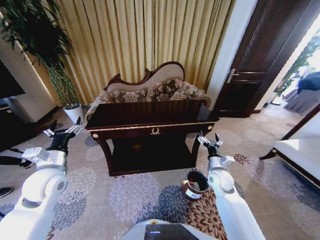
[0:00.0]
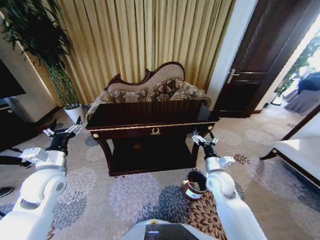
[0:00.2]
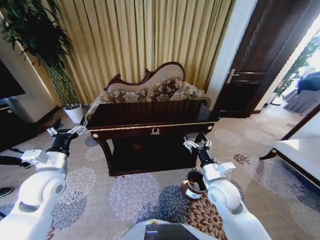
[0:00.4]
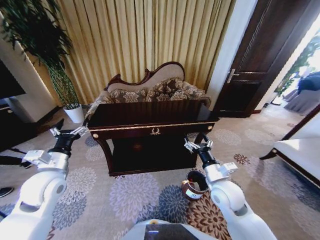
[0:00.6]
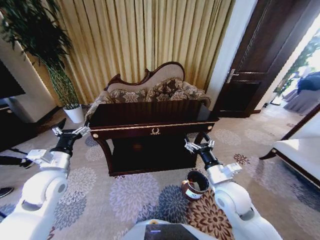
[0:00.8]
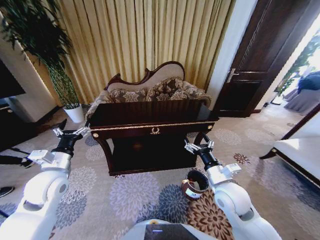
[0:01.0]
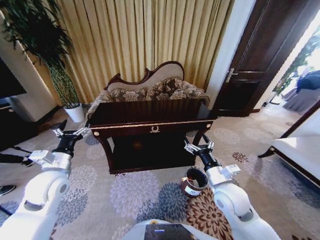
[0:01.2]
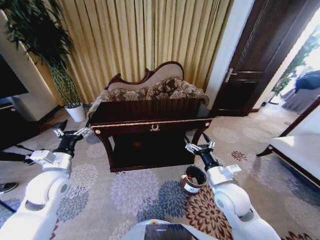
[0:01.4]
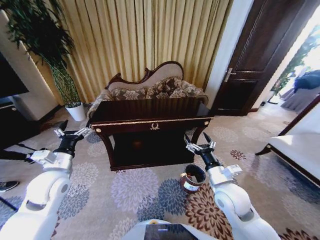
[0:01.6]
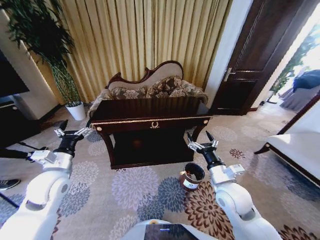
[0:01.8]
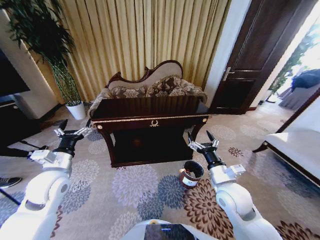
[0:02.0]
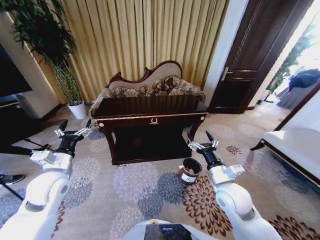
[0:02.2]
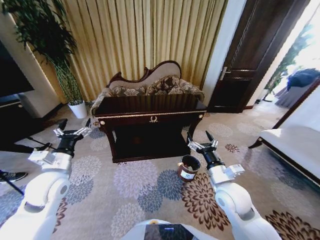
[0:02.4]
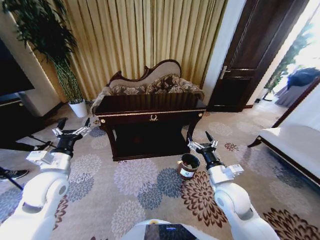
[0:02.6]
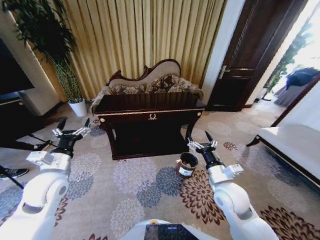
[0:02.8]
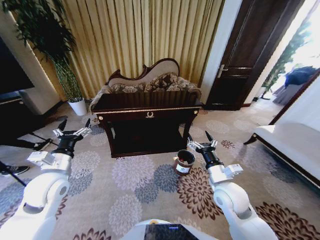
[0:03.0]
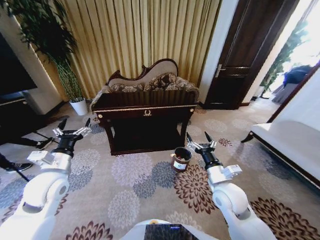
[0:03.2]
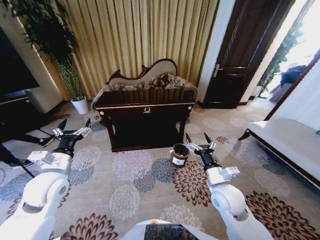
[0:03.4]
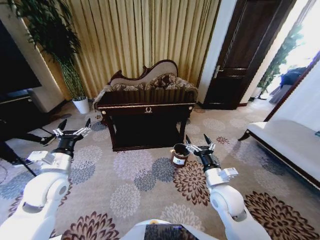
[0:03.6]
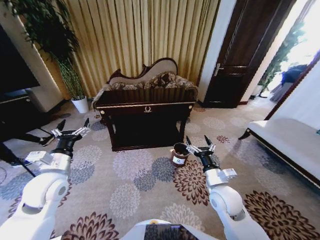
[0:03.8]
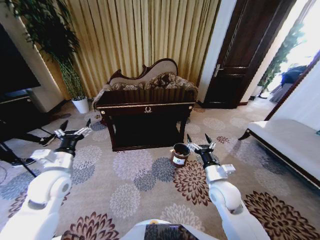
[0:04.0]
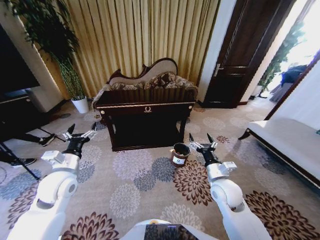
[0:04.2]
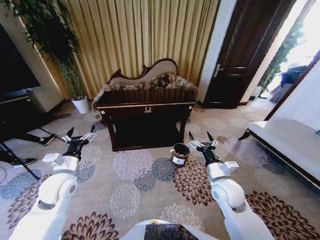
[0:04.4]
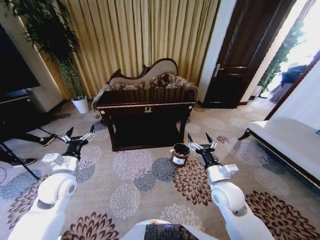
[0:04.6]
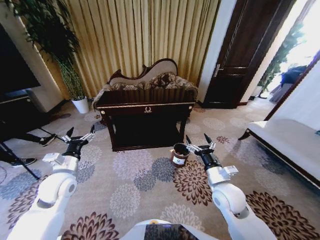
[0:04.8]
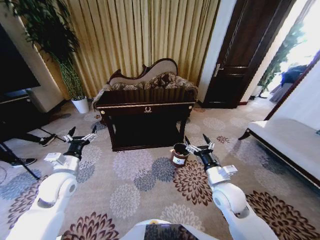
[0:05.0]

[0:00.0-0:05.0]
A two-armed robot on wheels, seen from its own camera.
Task of the whole recording: Move to the front of the table and place the trash on the table into the trash bin.
0:00.0 to 0:01.6: The right gripper shifts about 15 cm backward, upward and to the left.
0:03.4 to 0:05.0: The grippers stay close to where they were, moving slightly.

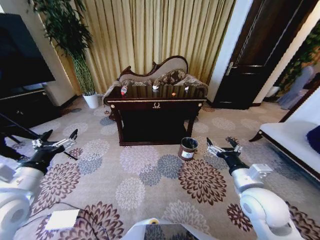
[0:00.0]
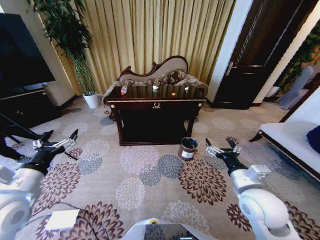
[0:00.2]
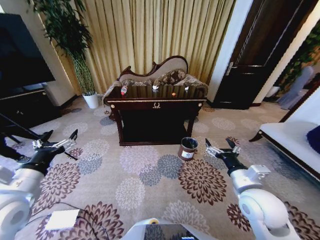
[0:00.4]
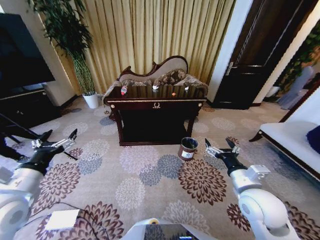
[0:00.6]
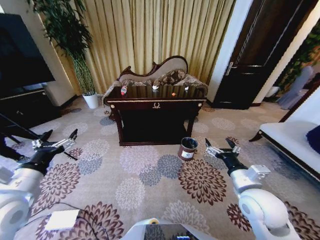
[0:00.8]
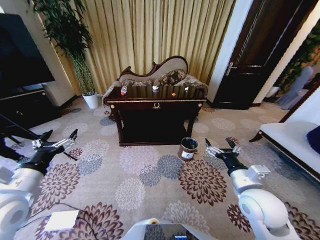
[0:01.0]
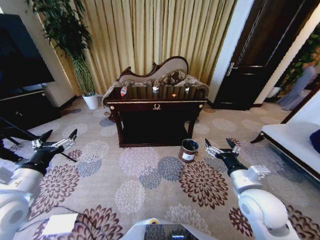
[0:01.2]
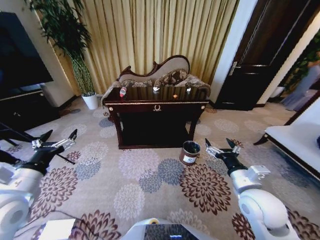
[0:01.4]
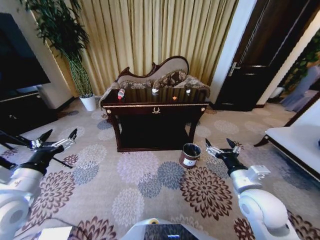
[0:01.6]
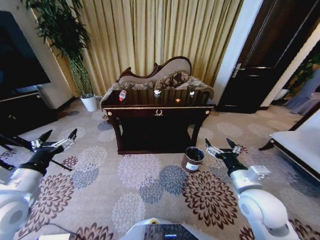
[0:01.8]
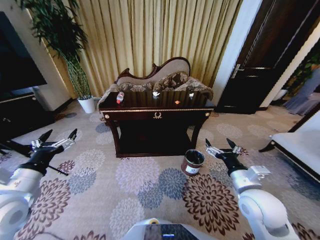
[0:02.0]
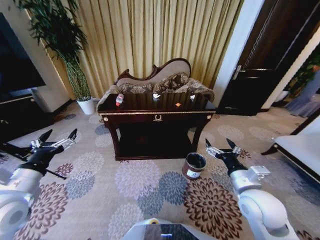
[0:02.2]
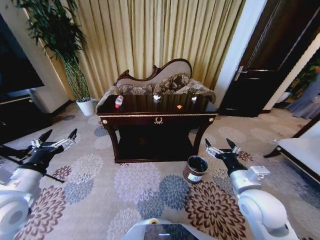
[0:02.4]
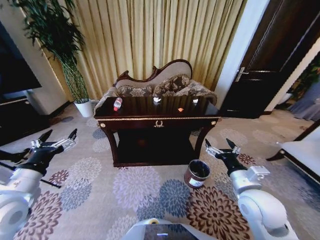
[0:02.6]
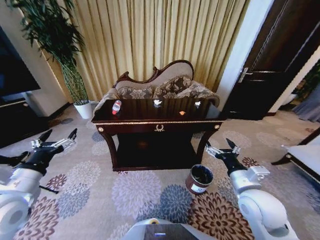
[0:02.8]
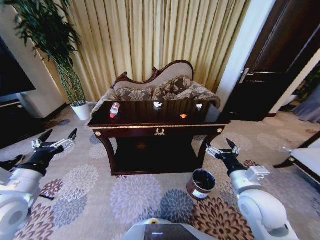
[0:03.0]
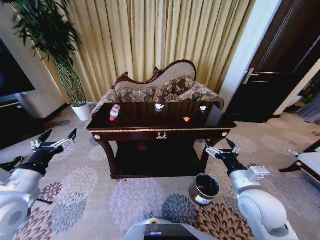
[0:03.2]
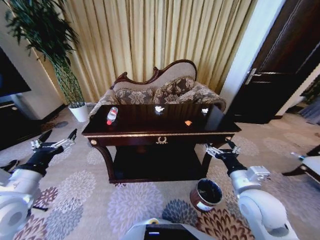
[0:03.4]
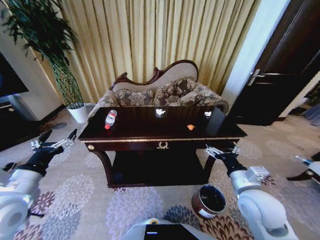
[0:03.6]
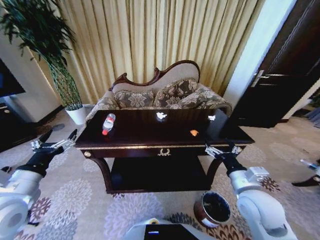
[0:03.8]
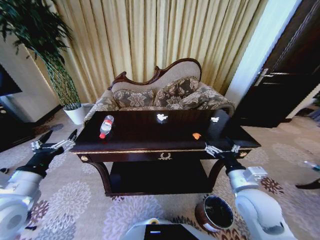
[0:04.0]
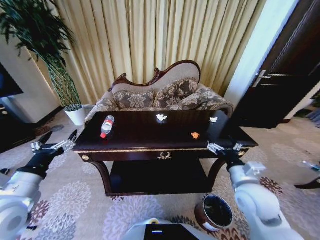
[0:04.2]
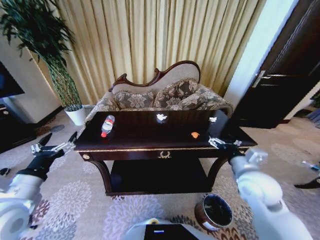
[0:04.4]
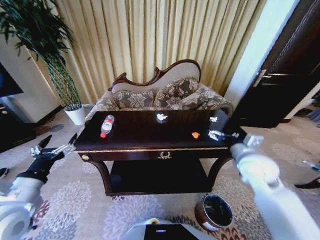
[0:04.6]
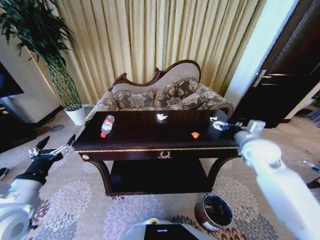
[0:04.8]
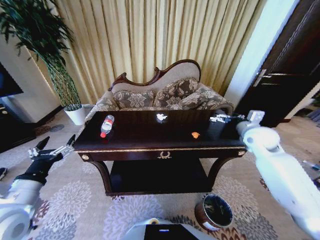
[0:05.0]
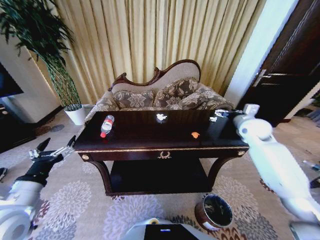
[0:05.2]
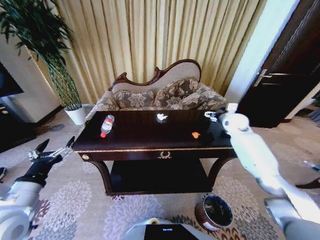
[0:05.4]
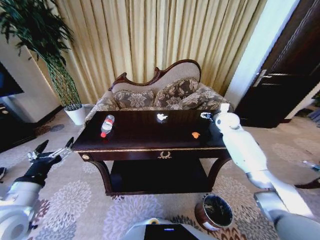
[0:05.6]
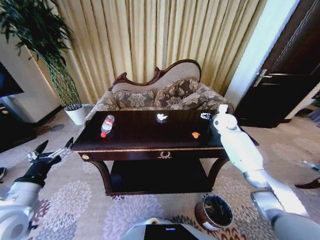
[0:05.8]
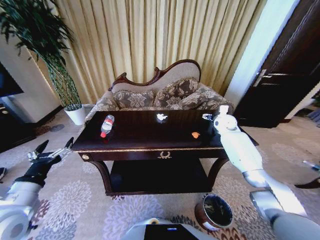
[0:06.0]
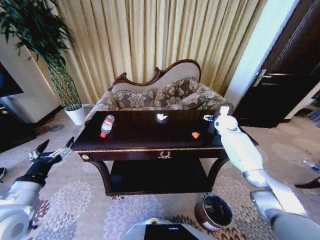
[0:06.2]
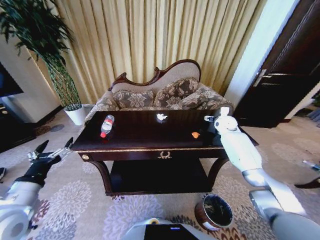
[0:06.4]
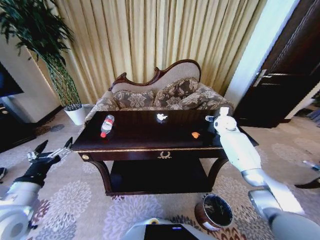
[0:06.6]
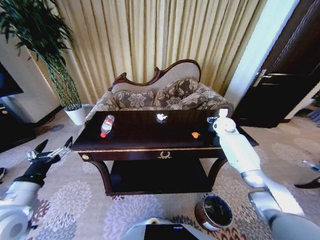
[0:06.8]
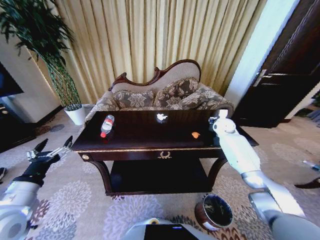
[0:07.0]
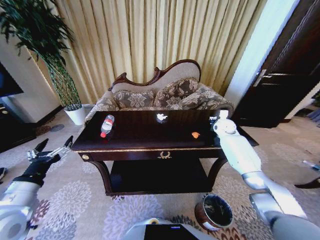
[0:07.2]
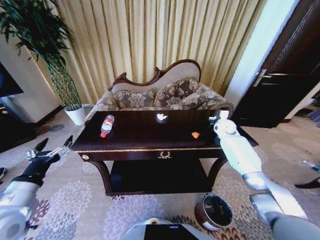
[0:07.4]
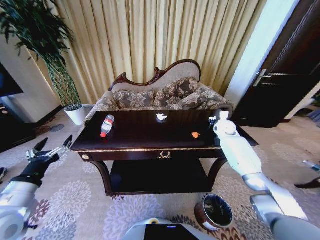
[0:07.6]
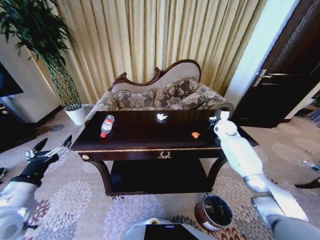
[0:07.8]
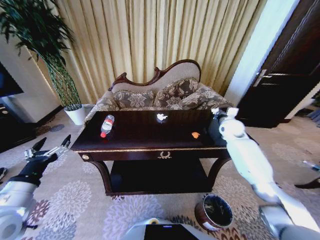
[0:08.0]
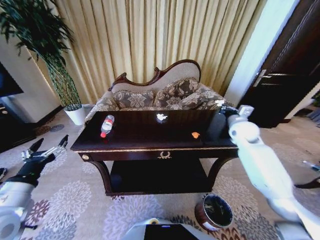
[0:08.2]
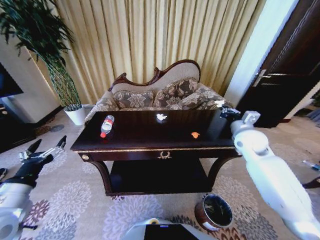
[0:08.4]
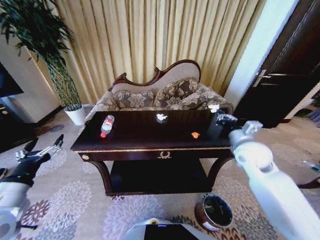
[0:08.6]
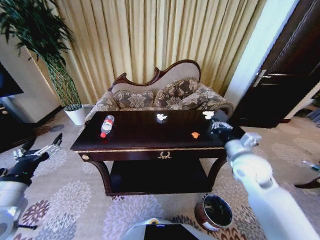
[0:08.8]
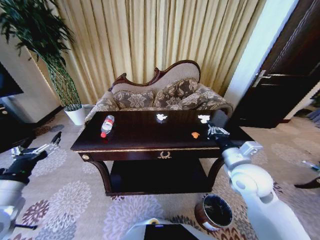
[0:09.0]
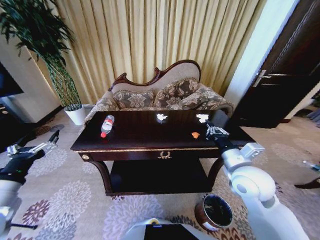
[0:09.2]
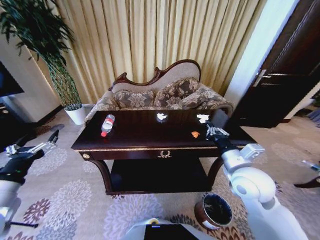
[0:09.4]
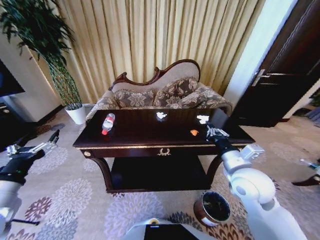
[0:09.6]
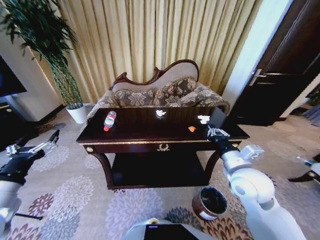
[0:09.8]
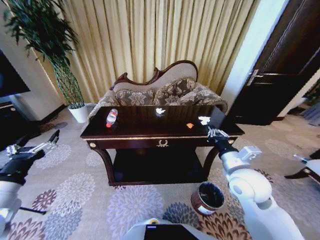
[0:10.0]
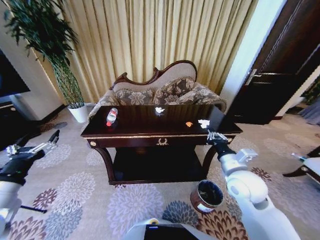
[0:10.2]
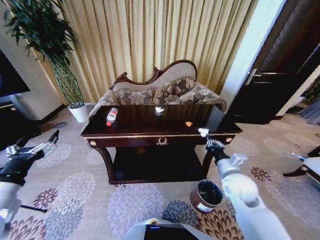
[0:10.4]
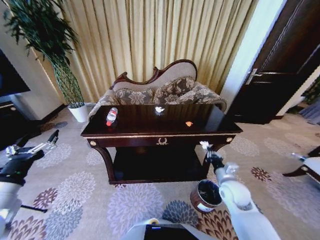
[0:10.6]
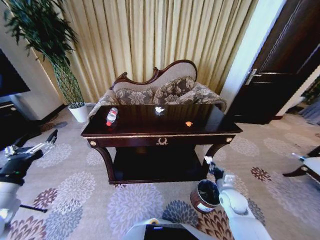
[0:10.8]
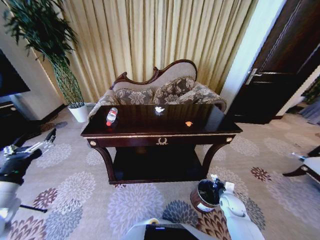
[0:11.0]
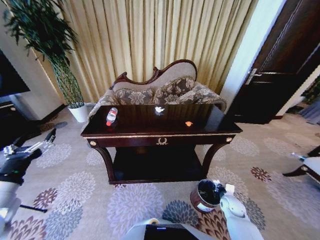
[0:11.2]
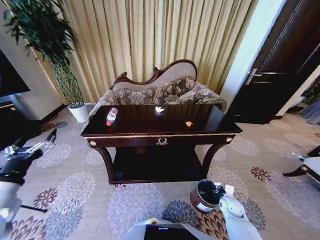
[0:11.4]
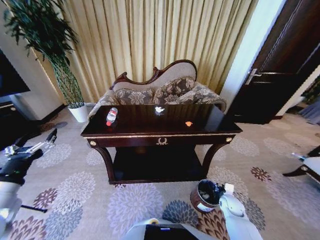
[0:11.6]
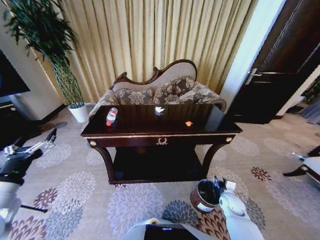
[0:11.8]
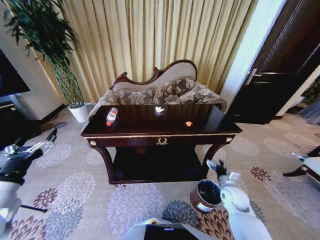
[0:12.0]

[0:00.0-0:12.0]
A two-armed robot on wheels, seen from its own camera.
Task of the whole recording: Move to the front of the table and place the trash on the table into the trash bin.
0:03.0 to 0:04.4: The right gripper shifts by roughly 5 cm.
0:04.4 to 0:06.0: The right gripper moves forward, about 30 cm.
0:06.0 to 0:07.6: The right gripper closes its fingers.
0:07.6 to 0:09.0: The right gripper travels backward by roughly 30 cm.
0:09.0 to 0:10.4: The right gripper heads downward, covering about 5 cm.
0:10.4 to 0:12.0: The right gripper is displaced downward and to the right by roughly 15 cm, and opens up.

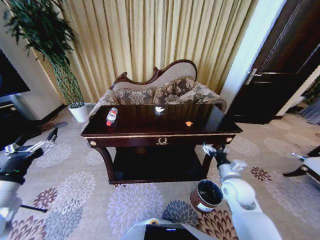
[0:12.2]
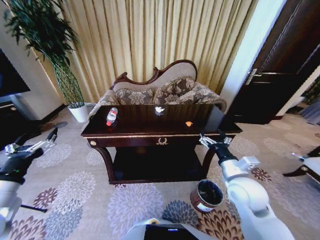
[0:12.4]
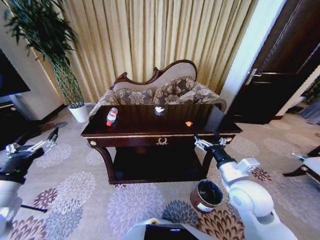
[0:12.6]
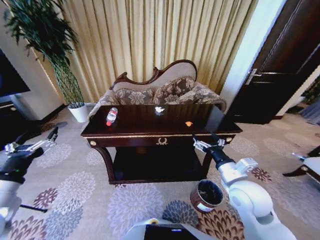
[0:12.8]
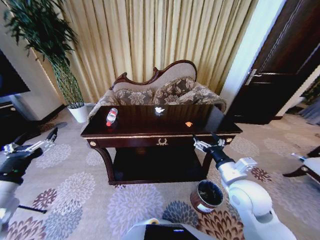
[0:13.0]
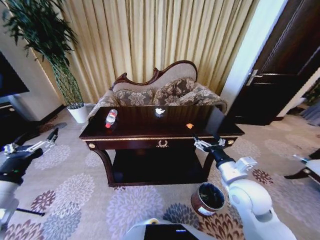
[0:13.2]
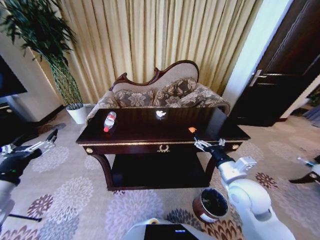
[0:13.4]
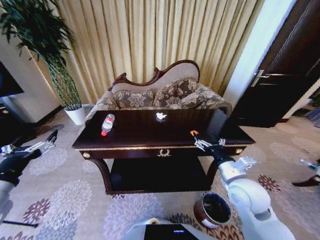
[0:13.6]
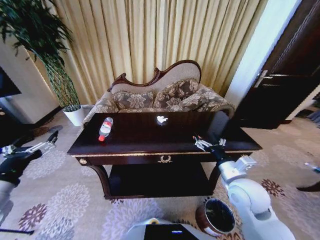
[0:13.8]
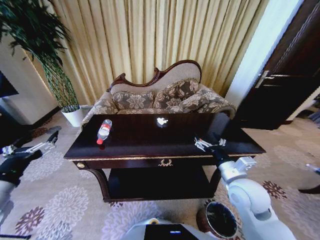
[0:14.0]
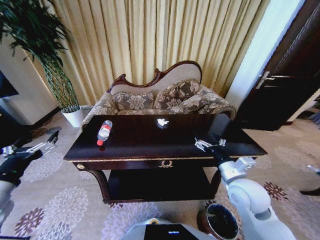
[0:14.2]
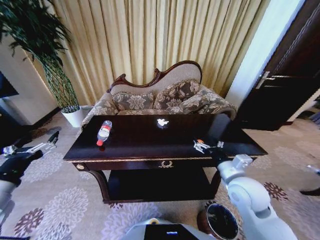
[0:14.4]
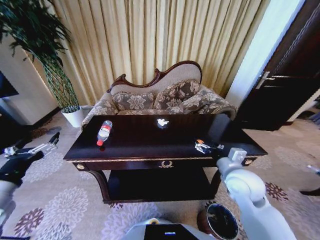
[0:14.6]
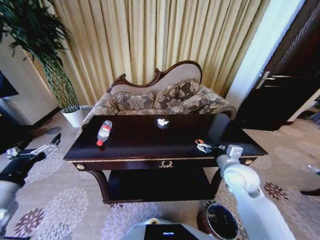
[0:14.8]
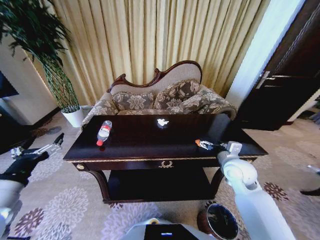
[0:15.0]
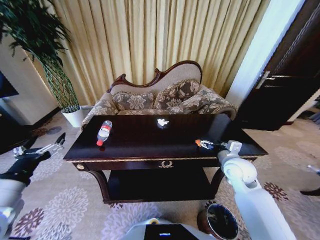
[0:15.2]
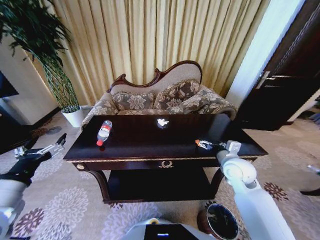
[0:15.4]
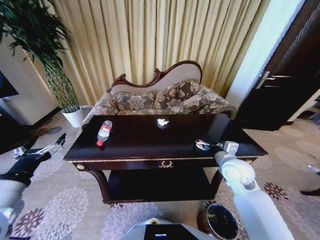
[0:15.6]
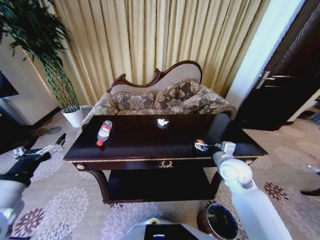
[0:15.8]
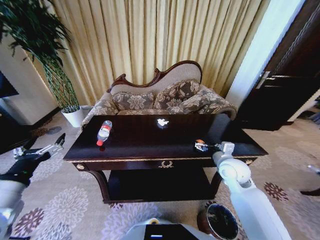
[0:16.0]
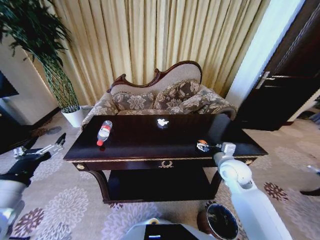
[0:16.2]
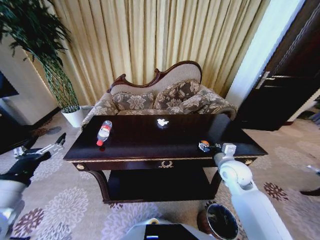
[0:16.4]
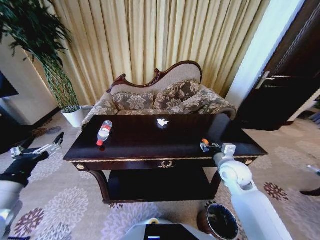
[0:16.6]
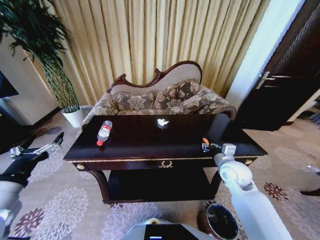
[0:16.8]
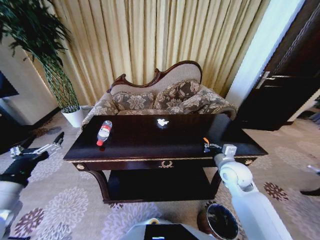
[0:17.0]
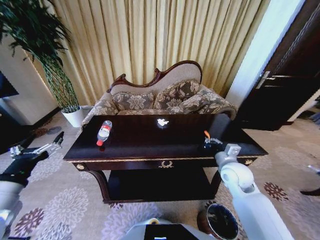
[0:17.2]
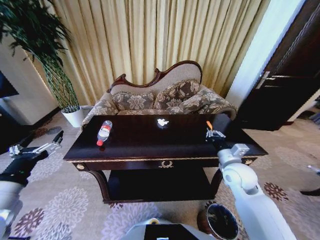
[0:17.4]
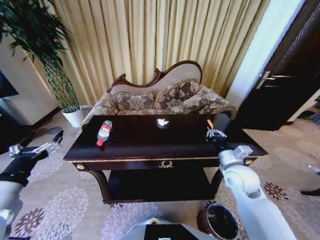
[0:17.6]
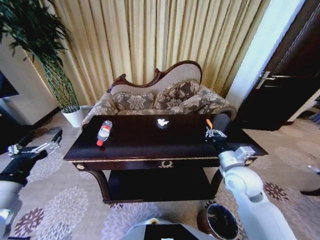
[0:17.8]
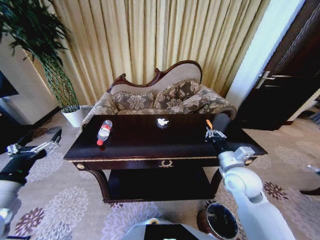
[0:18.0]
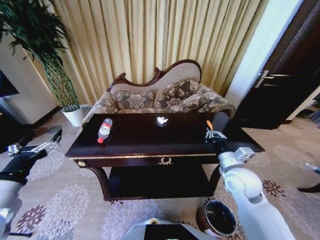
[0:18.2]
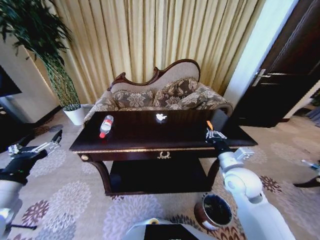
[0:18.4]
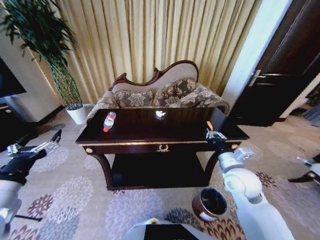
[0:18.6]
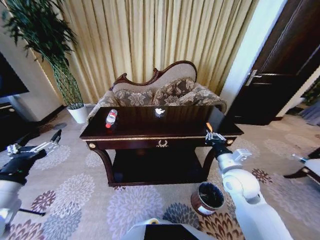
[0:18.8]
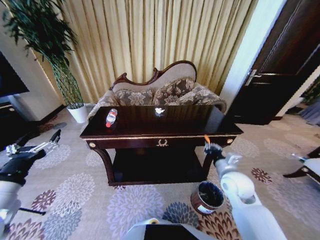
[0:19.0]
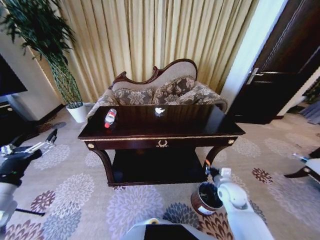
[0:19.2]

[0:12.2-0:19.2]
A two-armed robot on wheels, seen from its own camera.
Task of the whole recording: Move to the front of the table and place the trash on the table into the trash bin.
0:12.2 to 0:13.6: The right gripper moves upward, approximately 5 cm.
0:13.6 to 0:15.0: The right gripper is displaced forward by about 10 cm.
0:15.0 to 0:16.4: The grippers make only small movements.
0:16.4 to 0:17.8: The right gripper shifts by roughly 5 cm, and closes up.
0:17.8 to 0:19.2: The right gripper travels downward by approximately 15 cm.
